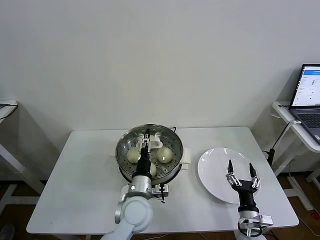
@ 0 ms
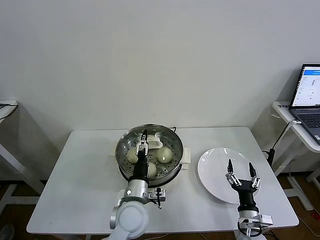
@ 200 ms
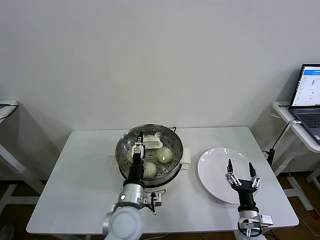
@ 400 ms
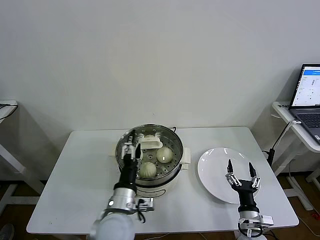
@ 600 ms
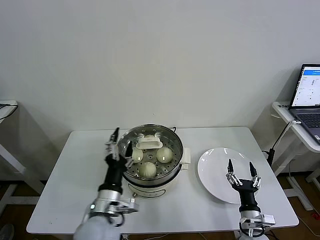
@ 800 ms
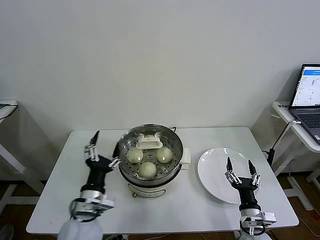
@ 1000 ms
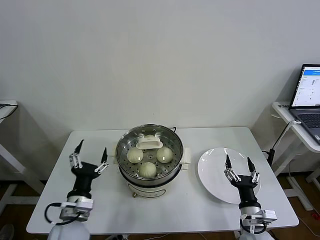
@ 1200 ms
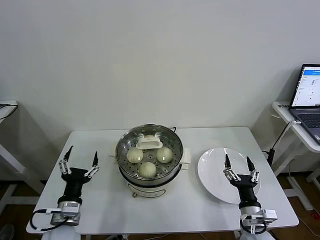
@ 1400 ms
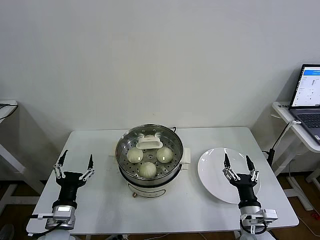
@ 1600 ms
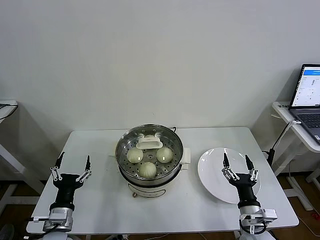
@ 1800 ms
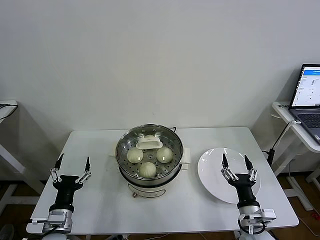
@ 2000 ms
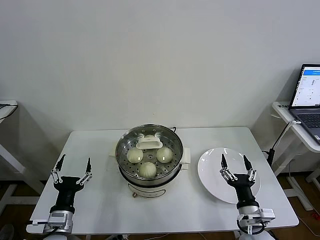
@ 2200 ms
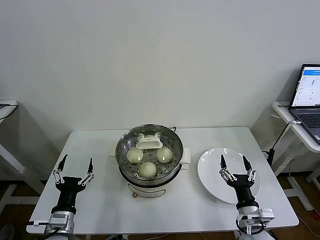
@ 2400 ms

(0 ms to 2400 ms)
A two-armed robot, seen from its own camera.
Task of the whole recording: take steamed baozi put them in steamer then cover it.
0 ms - 1200 ms: The left gripper goes about 20 cm to the left and backward, and opens.
1200 ms - 2400 ms: The left gripper travels to the left by about 5 cm.
